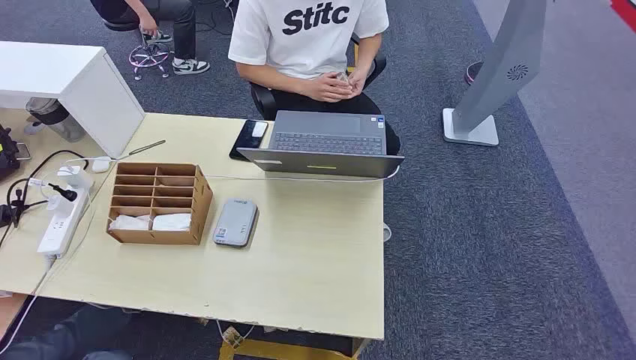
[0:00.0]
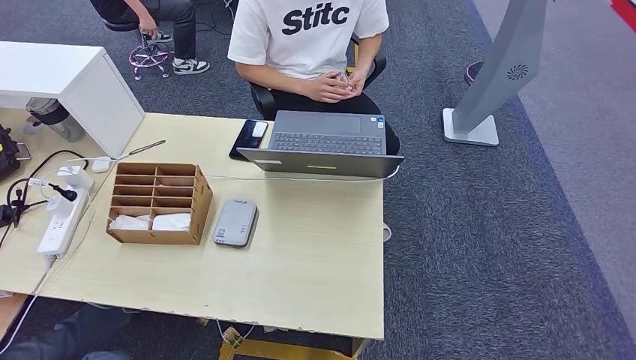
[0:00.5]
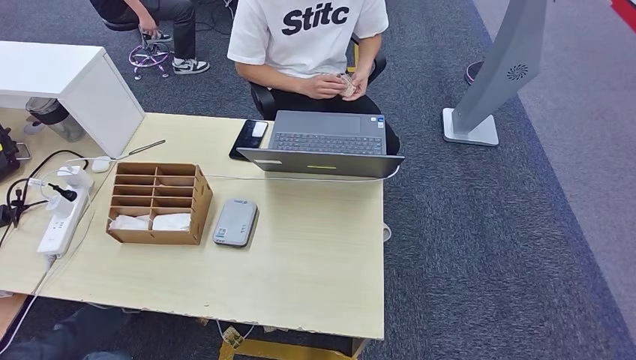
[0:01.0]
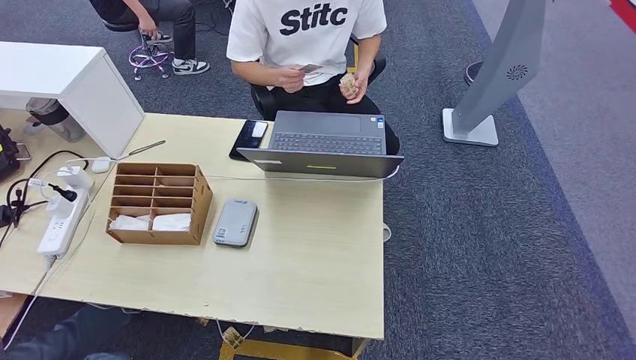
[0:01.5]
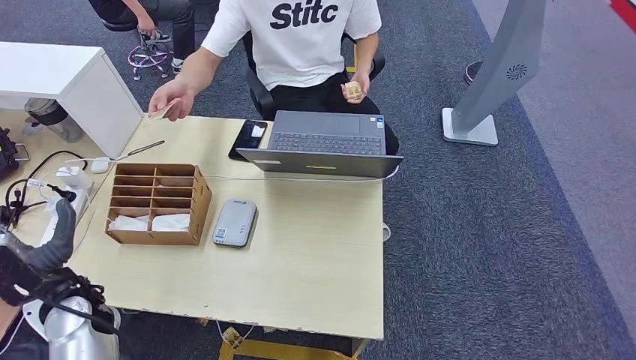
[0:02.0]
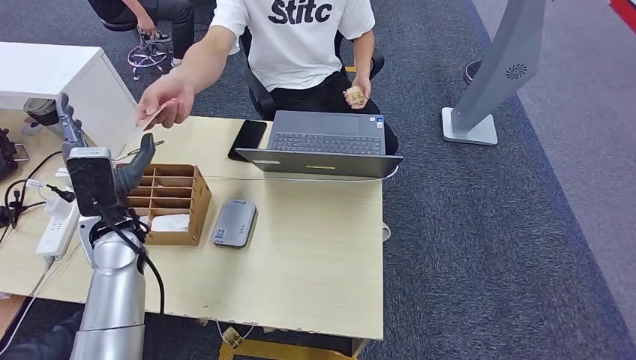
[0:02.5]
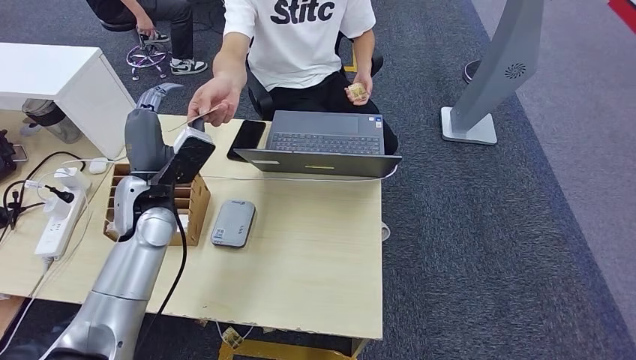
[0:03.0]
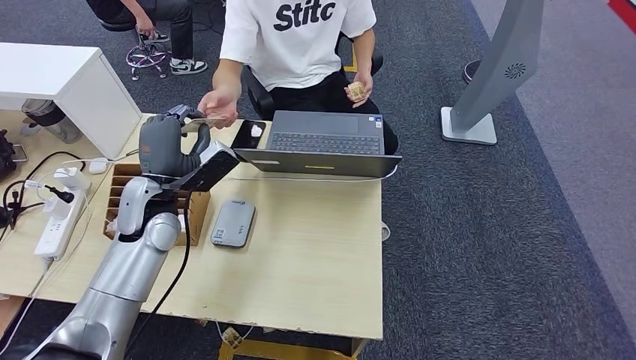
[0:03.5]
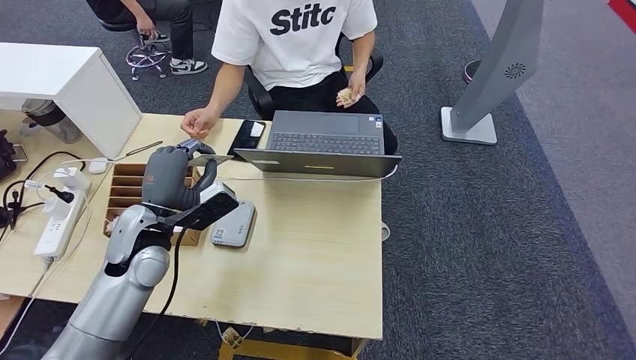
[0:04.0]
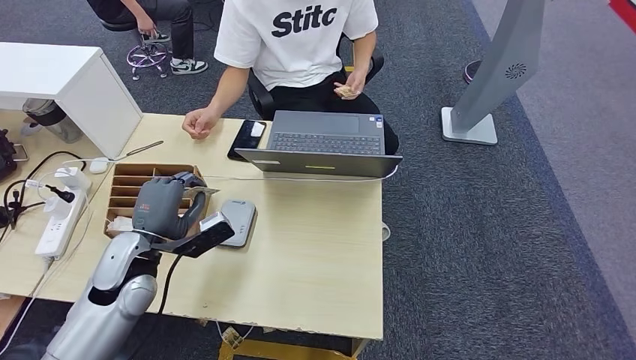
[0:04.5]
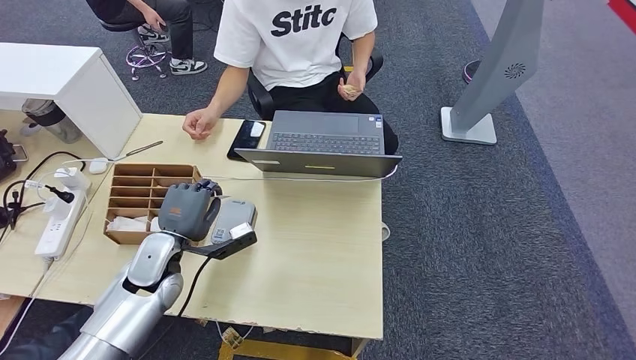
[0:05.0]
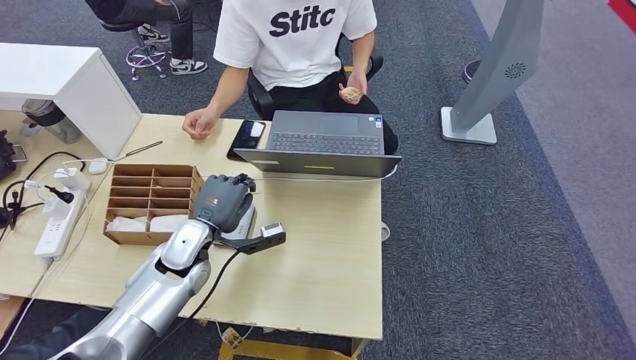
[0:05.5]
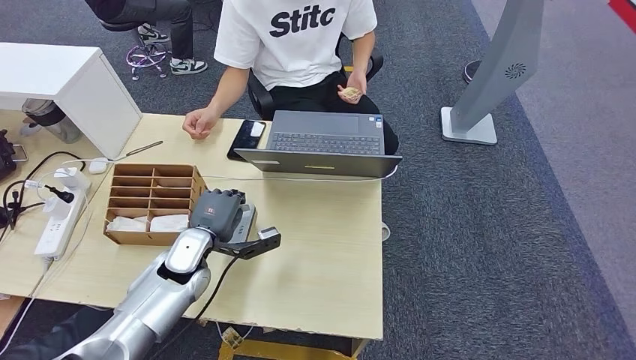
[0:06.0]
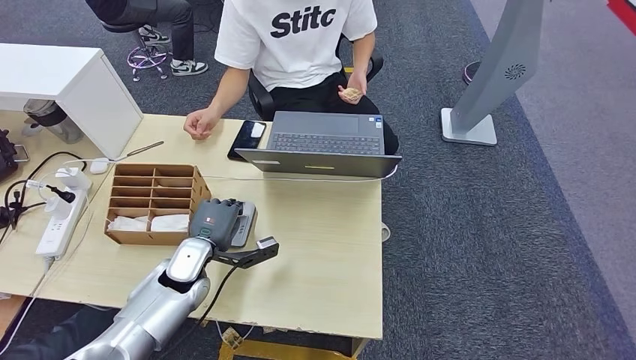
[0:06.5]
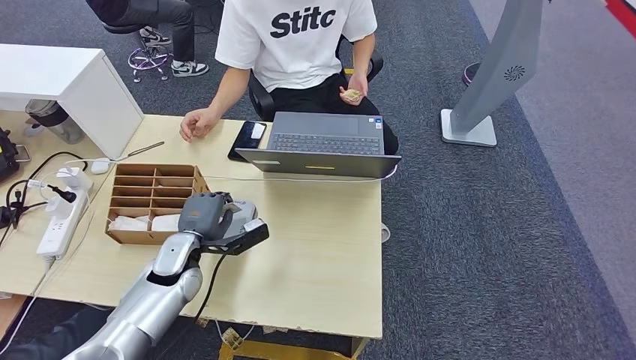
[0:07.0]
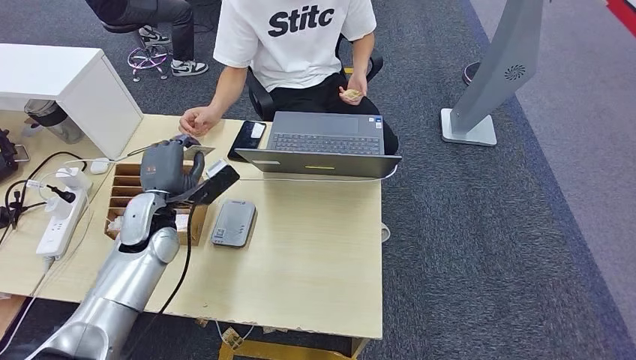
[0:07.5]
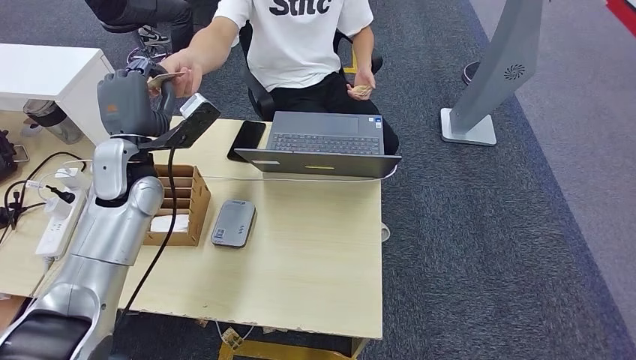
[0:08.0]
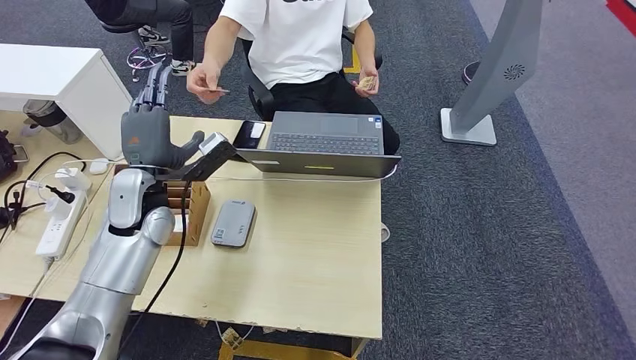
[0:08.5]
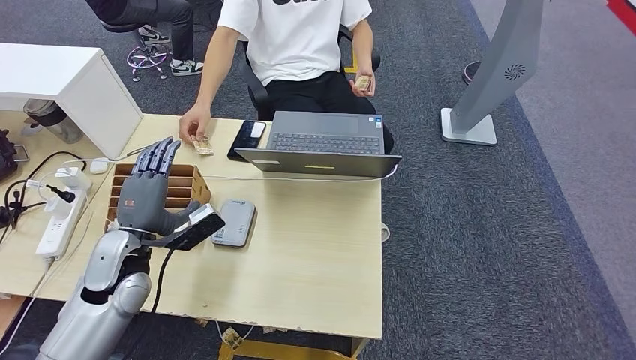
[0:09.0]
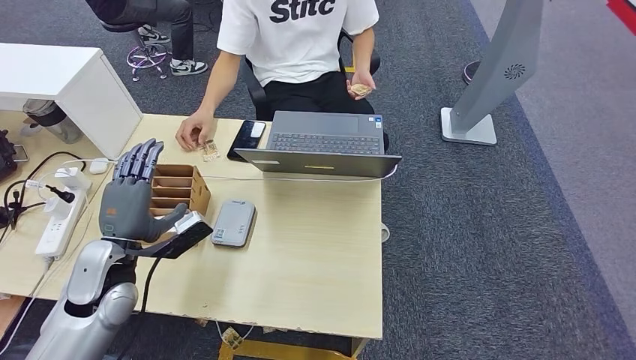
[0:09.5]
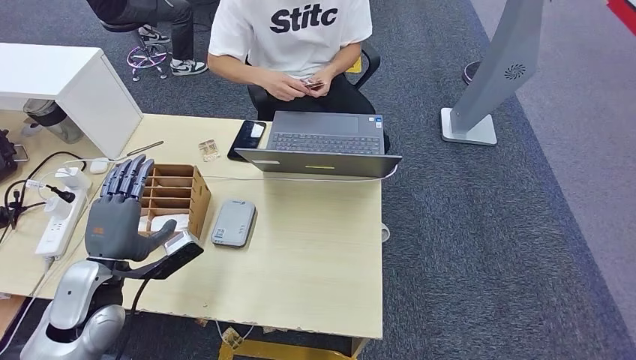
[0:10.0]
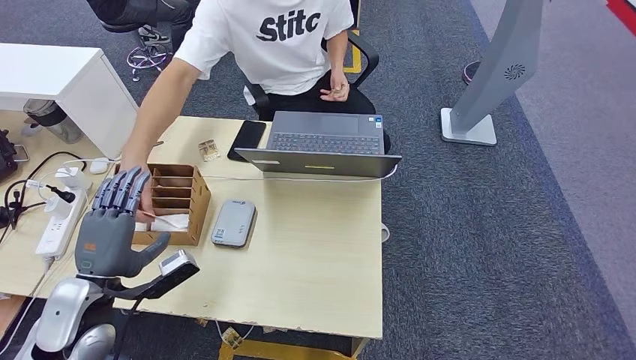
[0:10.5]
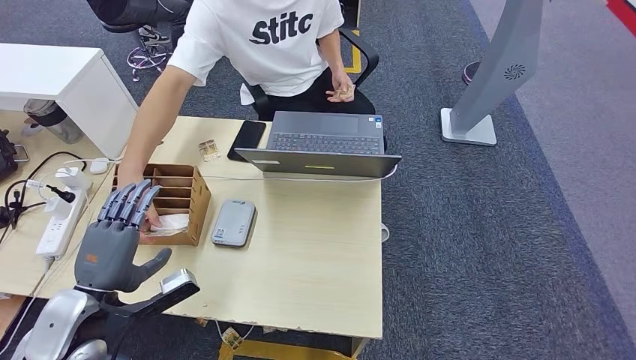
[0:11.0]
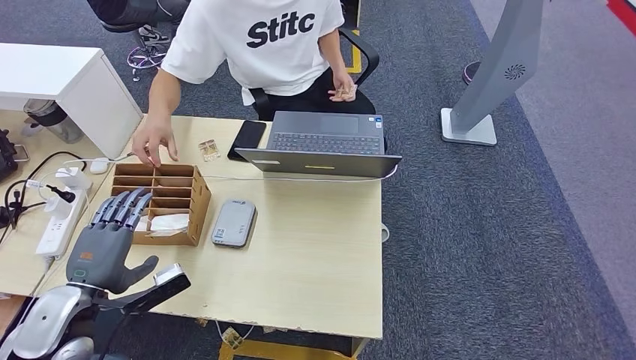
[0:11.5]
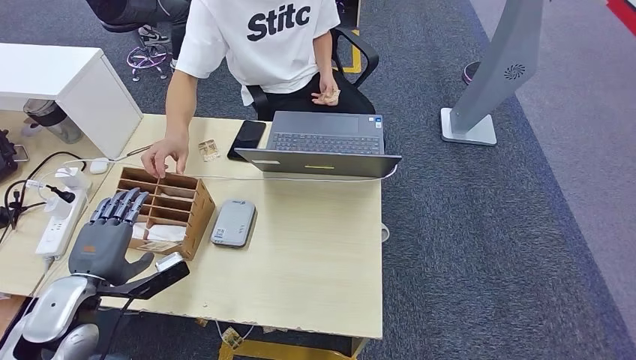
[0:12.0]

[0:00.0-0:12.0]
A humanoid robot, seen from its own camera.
Step, 0:00.0 to 0:03.0: Take the ID card from the person's hand.
Step, 0:03.5 to 0:06.5: Place the ID card on the card reader.
Step, 0:07.5 to 0:09.0: Hand the ID card to the person.
0:02.0 to 0:04.0: The left hand travels forward, to the right and upward by some 15 cm.
0:04.0 to 0:06.0: The left hand moves downward, about 10 cm.
0:06.0 to 0:08.0: The left hand moves upward, about 20 cm.
0:08.0 to 0:10.0: The left hand goes roughly 20 cm backward and downward.

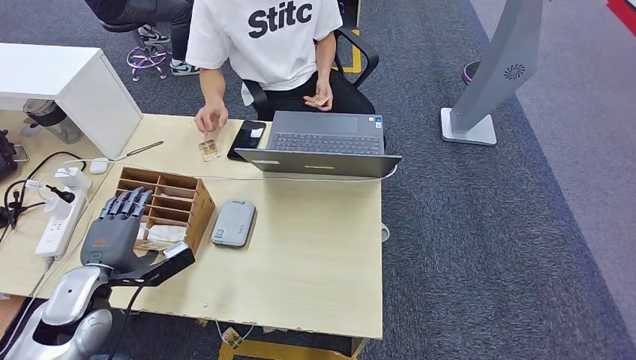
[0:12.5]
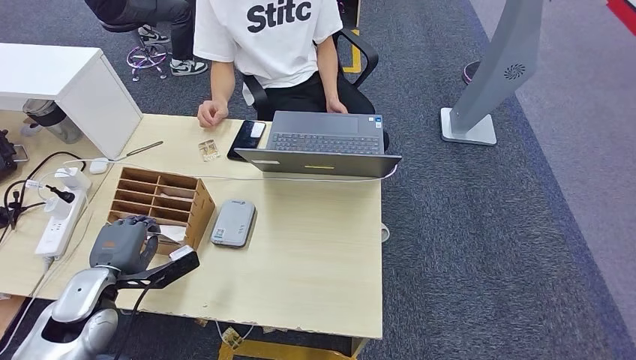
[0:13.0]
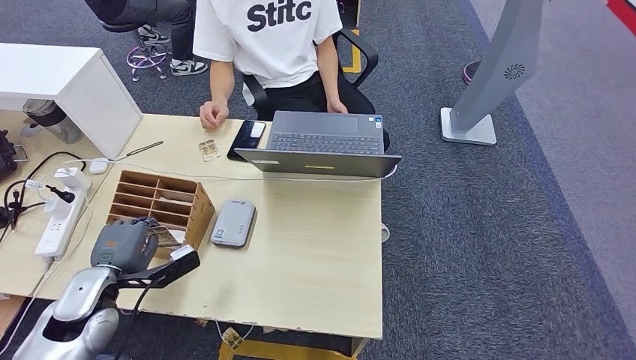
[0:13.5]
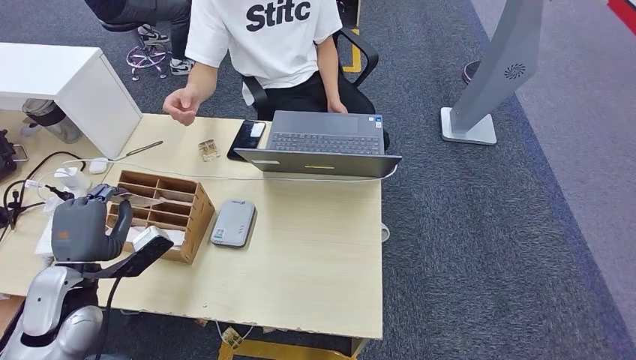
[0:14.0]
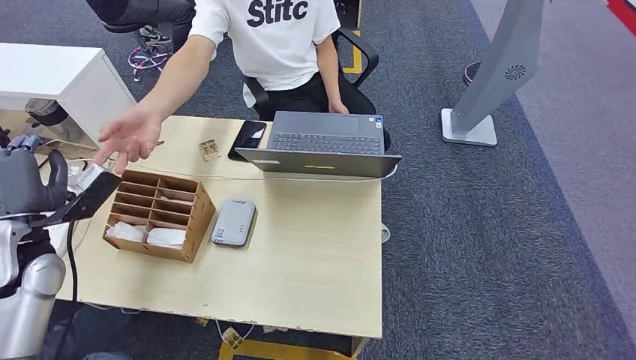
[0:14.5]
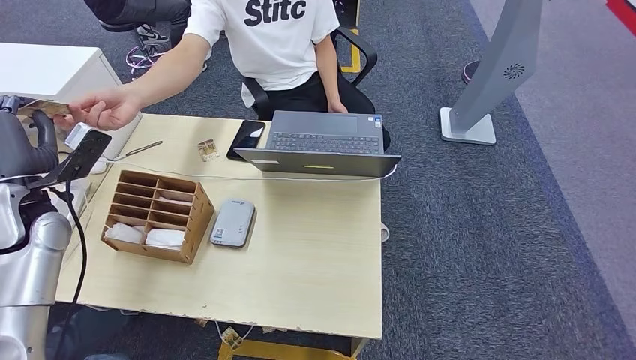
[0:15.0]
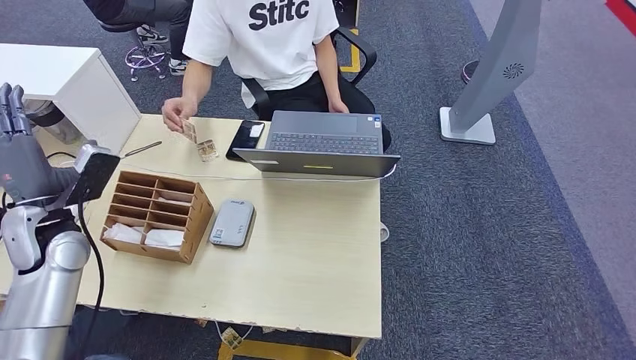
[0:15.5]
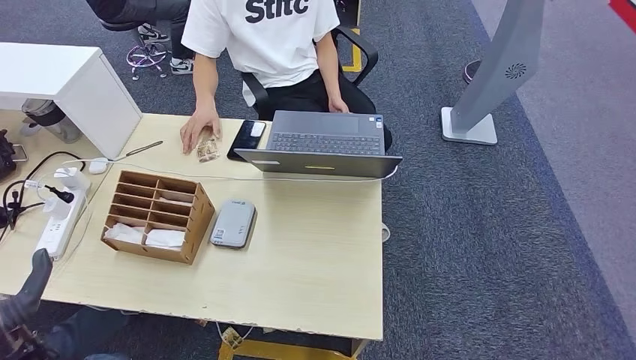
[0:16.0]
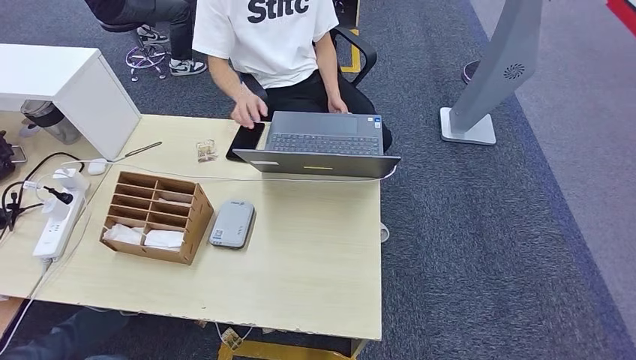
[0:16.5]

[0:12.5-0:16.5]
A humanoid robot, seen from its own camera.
Step, 0:14.5 to 0:16.5: Hand the room key to the person.
0:12.5 to 0:14.5: The left hand heads upward and to the left, covering about 10 cm.
0:14.5 to 0:16.5: The left hand is displaced backward and downward by roughly 35 cm.
